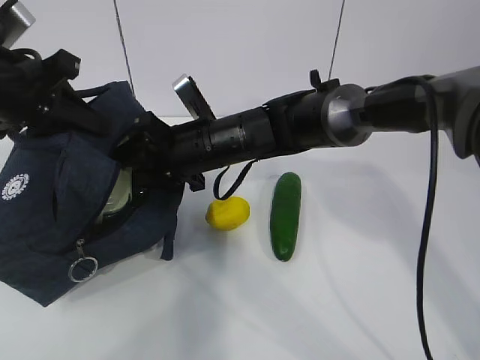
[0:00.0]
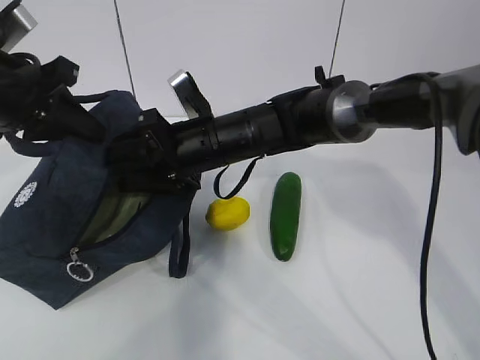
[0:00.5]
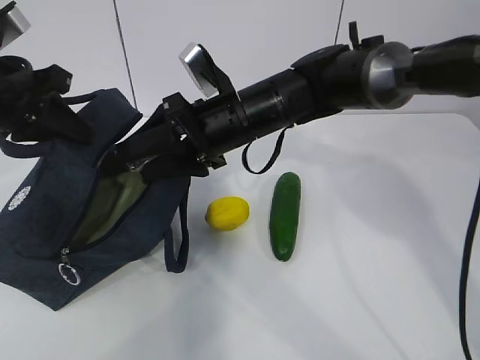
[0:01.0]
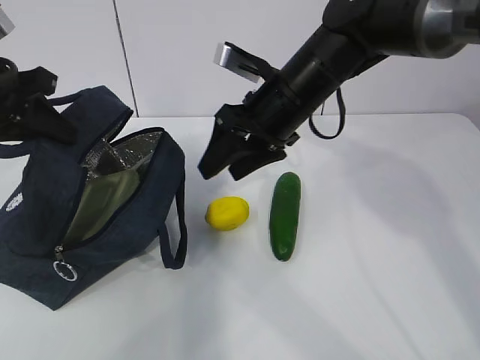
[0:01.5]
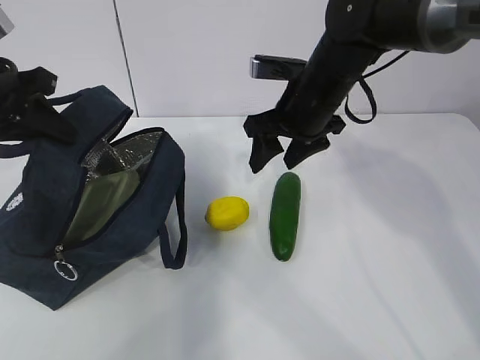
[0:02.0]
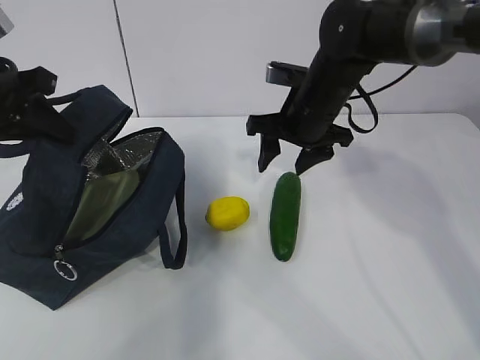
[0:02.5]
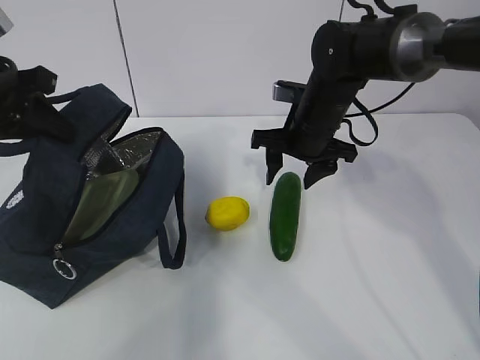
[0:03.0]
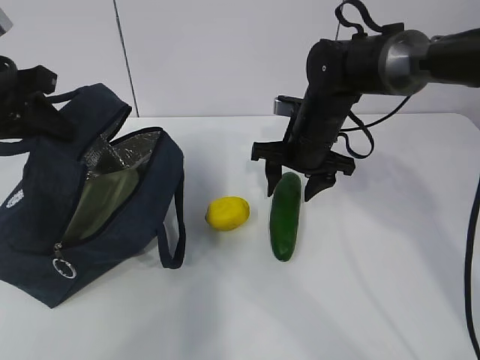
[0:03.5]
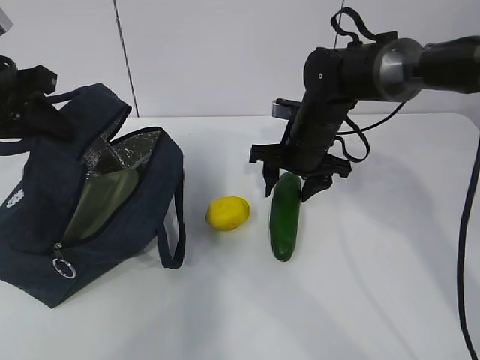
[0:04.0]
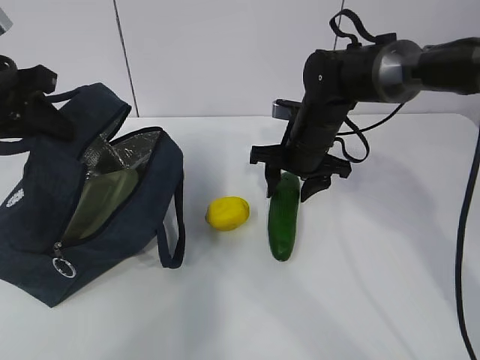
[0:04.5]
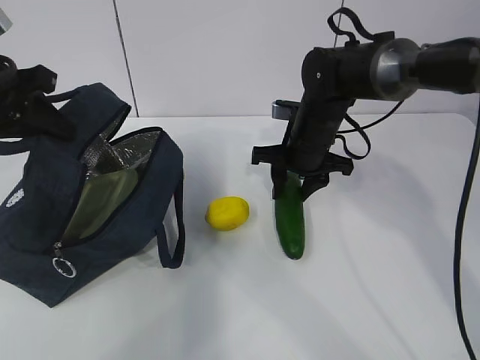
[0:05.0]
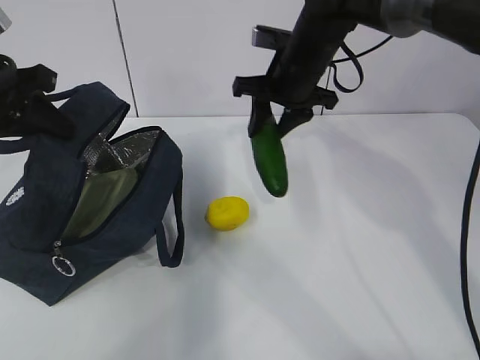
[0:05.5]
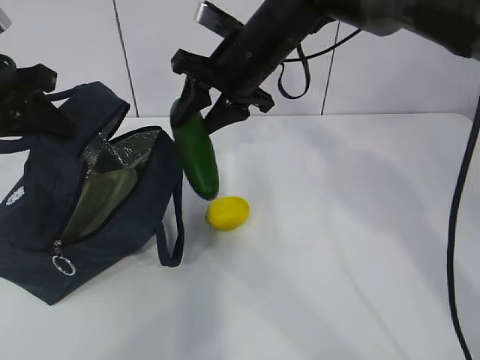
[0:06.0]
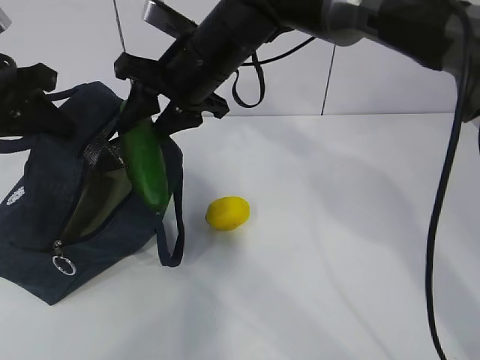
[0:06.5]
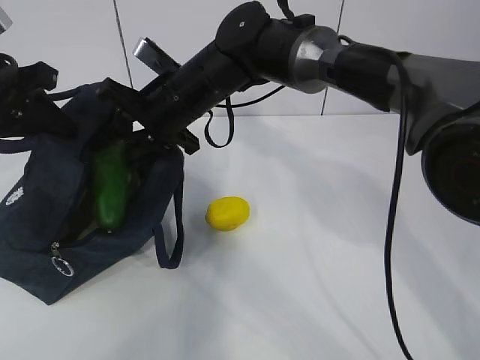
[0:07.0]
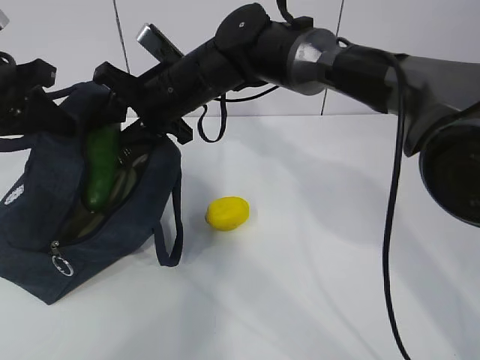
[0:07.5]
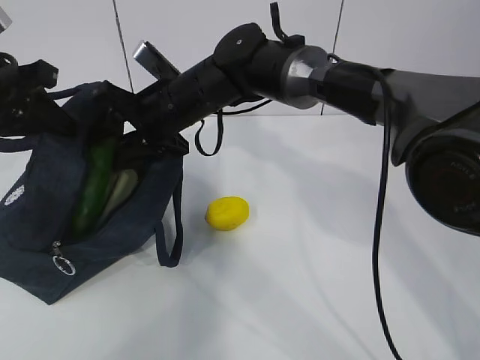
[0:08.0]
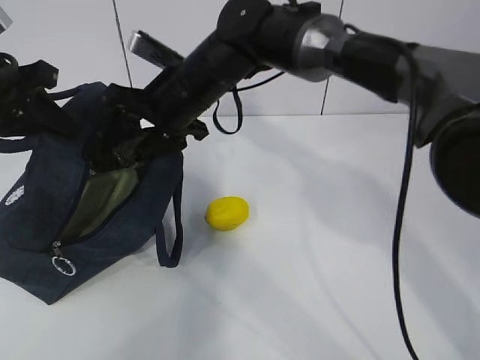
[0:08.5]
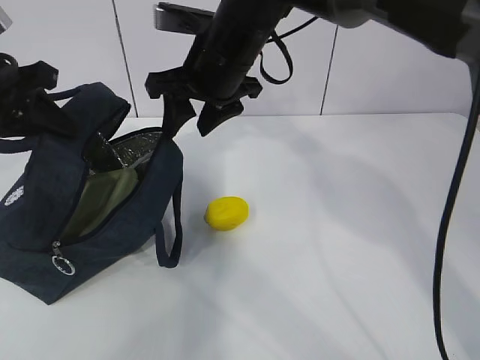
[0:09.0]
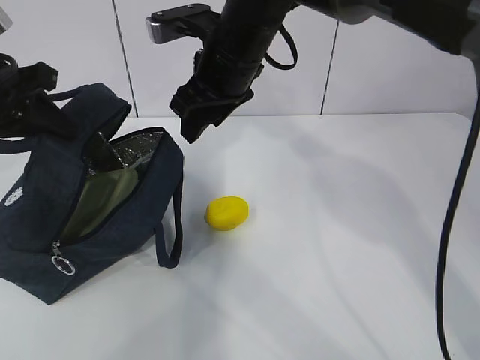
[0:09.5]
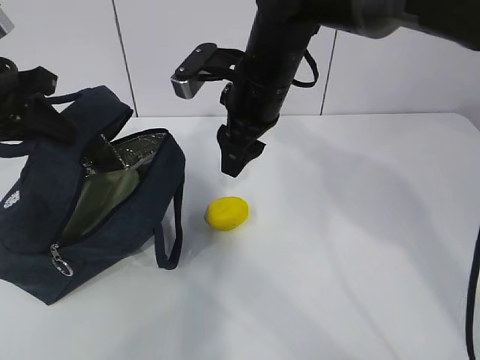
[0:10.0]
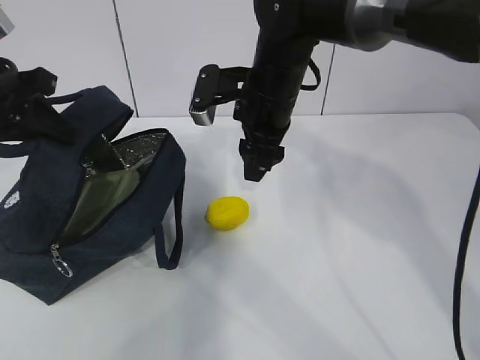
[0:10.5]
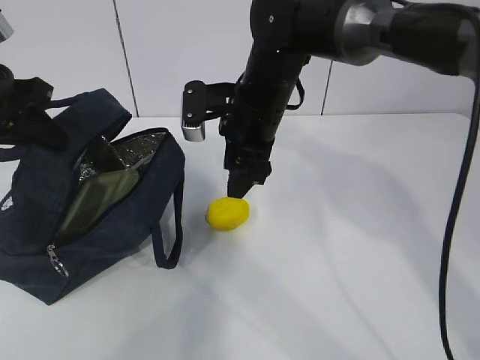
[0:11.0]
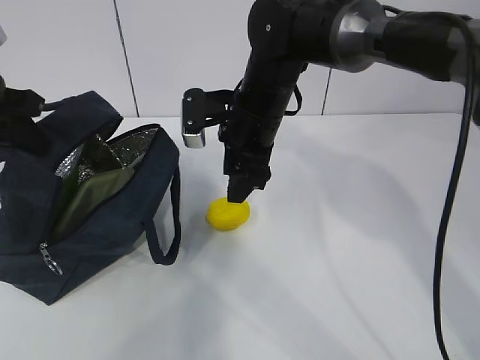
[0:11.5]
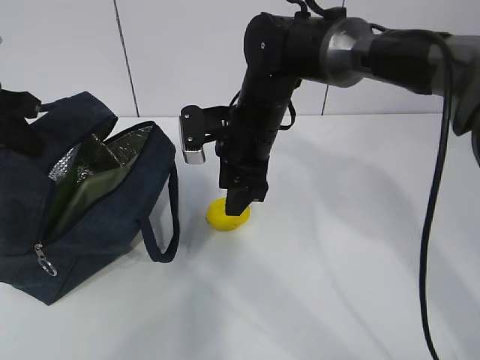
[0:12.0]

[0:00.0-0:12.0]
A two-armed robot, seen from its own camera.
Step, 0:01.5 to 0:04.5: Grasp the cucumber with the right gripper.
Step, 0:05.5 to 0:08.5: Place the cucumber into the package with the right gripper.
0:00.0 to 0:02.0: The right gripper moves to the right and upward, some 15 cm.
0:02.0 to 0:04.0: The right gripper goes about 10 cm downward.
0:04.0 to 0:06.0: The right gripper shifts some 15 cm upward and to the left.
0:06.0 to 0:08.0: The right gripper shifts some 10 cm to the left and downward.
0:08.0 to 0:10.0: The right gripper goes about 10 cm to the right.
0:10.0 to 0:12.0: The right gripper moves downward, approximately 5 cm.

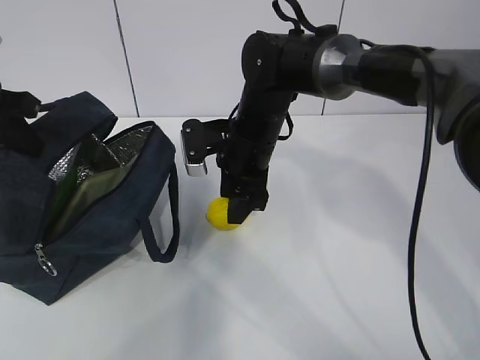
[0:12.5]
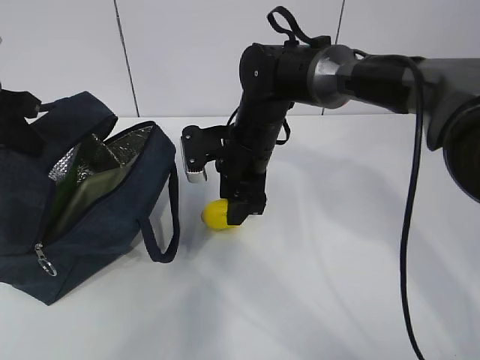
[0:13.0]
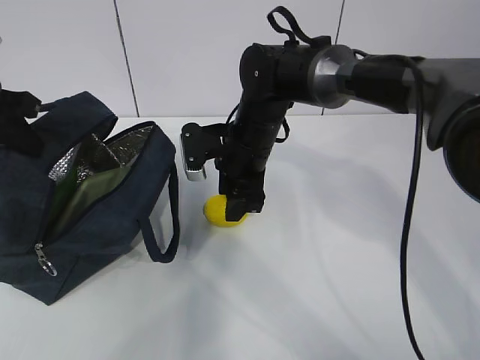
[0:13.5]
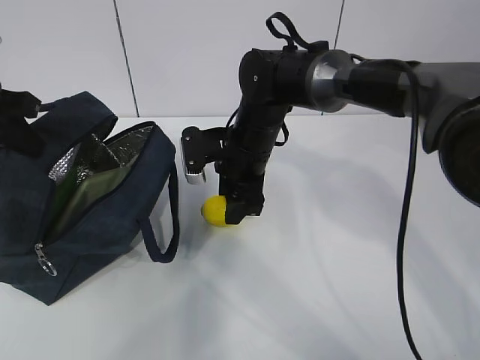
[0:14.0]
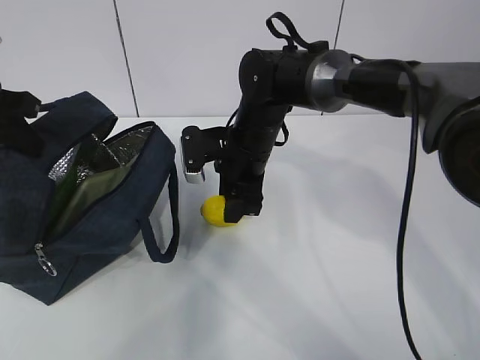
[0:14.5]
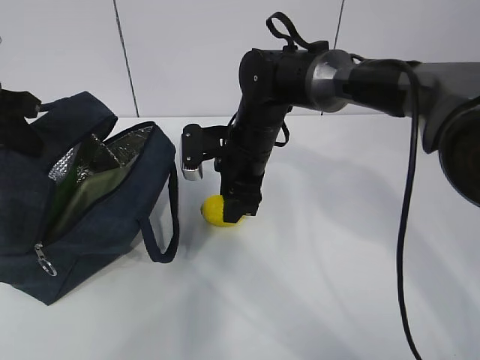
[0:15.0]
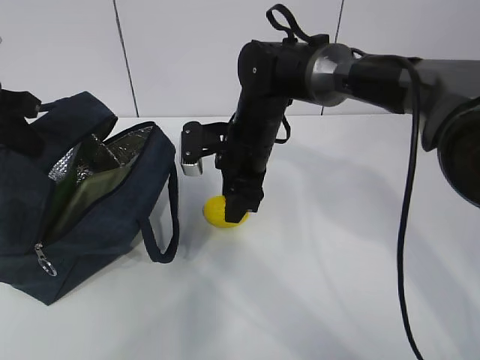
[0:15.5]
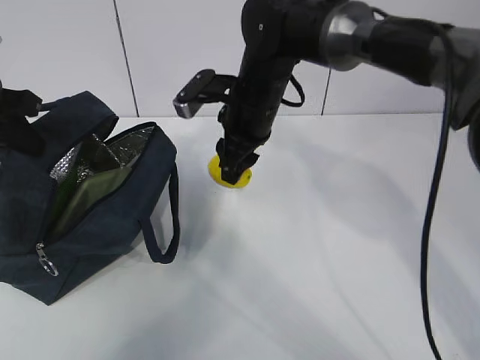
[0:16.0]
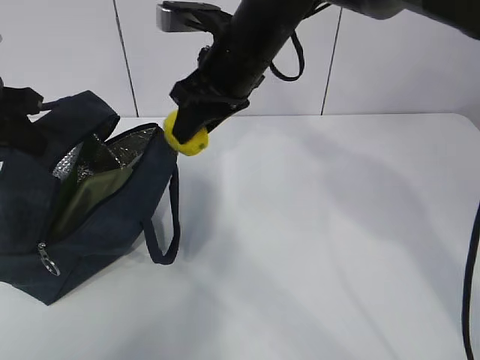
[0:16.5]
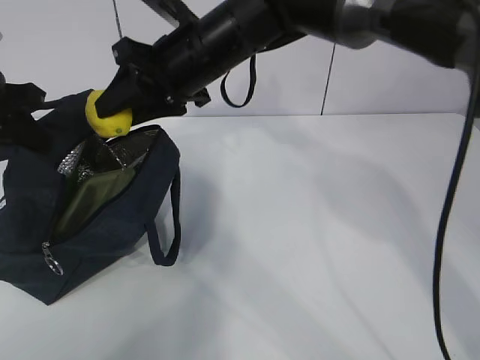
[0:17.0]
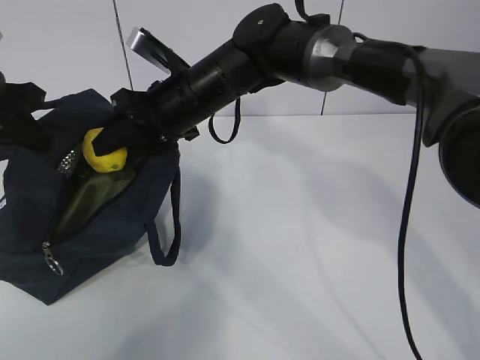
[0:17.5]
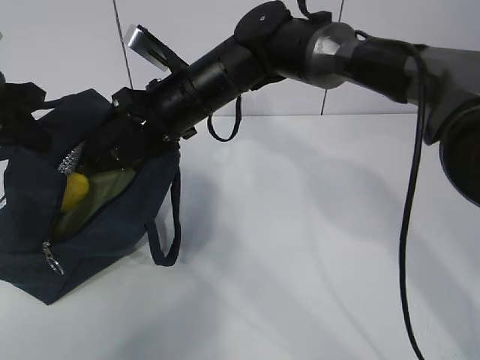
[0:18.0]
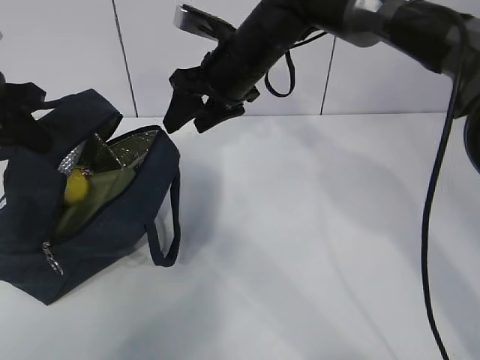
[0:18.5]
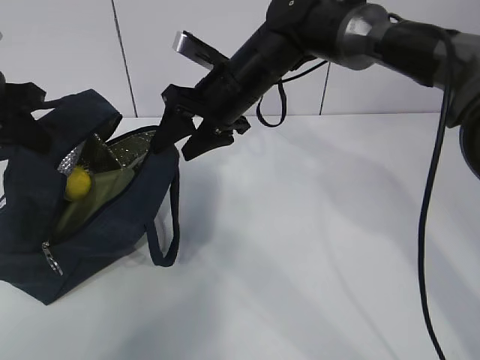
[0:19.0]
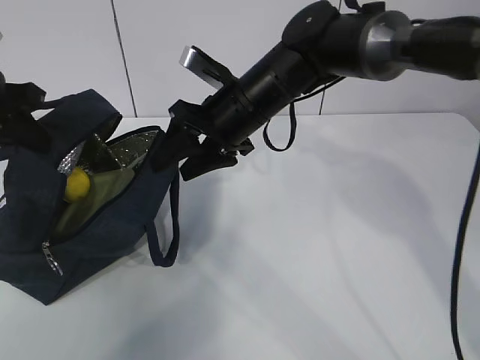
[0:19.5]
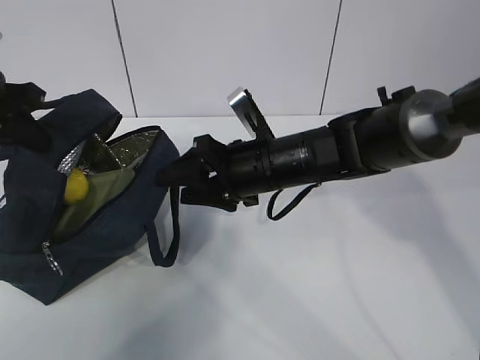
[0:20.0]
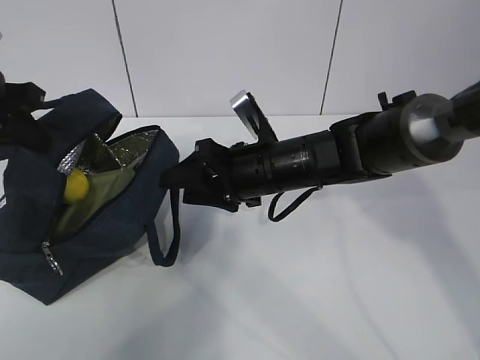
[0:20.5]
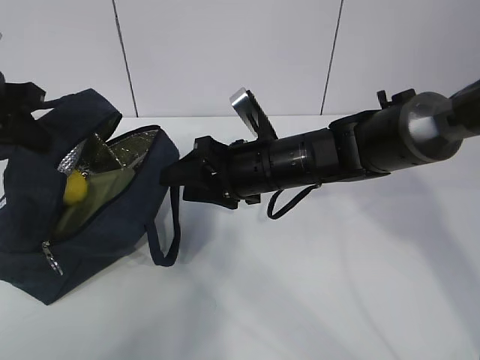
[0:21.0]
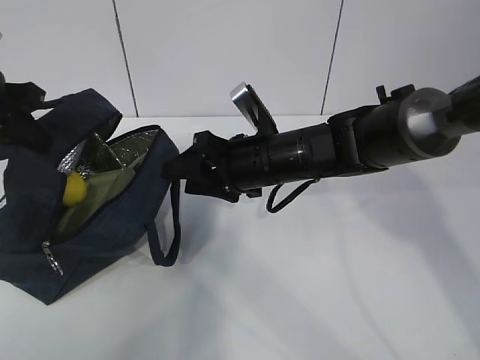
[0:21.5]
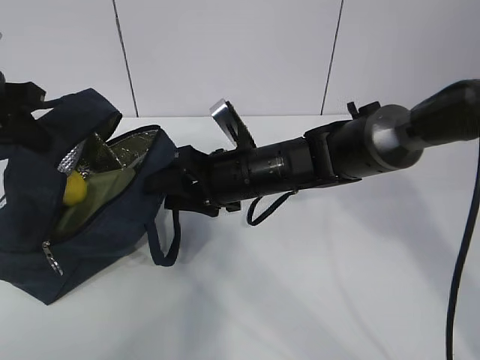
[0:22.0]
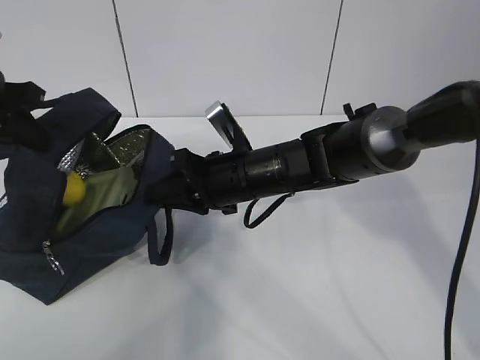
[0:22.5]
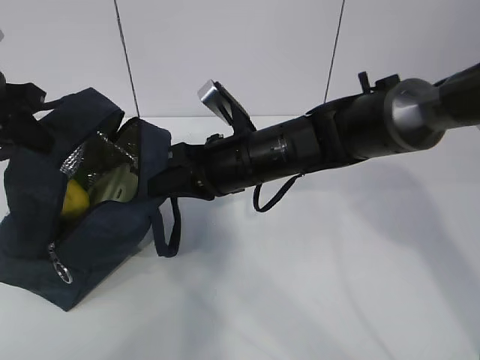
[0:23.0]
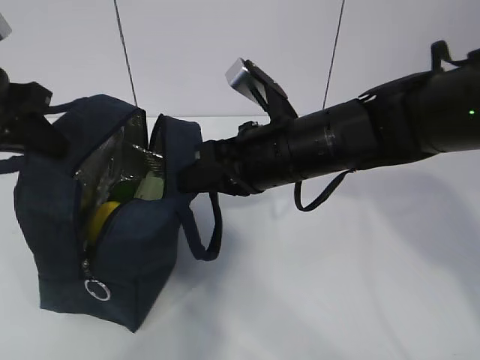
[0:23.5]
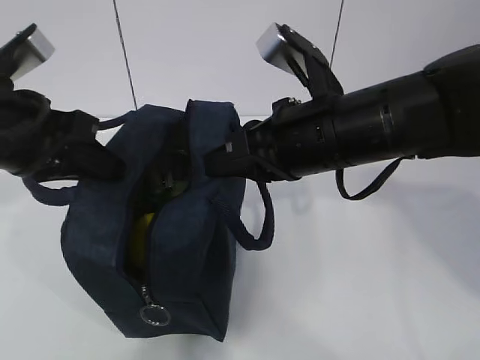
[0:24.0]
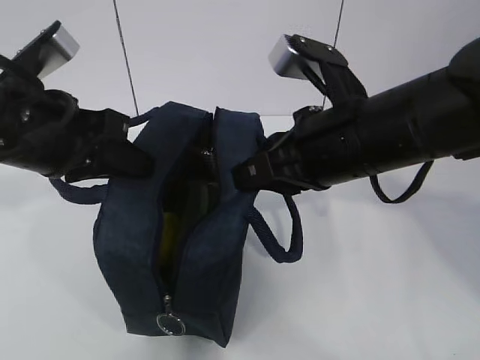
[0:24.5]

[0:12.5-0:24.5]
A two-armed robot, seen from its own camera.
Step, 0:12.5 to 0:14.5: Grasp the lemon with the right gripper.
Step, 0:15.5 to 0:18.0: Place the lemon into the package with the right gripper.
0:12.5 to 0:14.5: The grippers stay close to where they were, moving slightly.
0:14.5 to 0:16.5: The right gripper is displaced upward by about 15 cm.
0:18.5 to 0:20.5: The right gripper is displaced downward and backward by roughly 15 cm.
0:20.5 to 0:22.5: The right gripper closes up.
0:22.5 to 0:24.5: The left gripper moves to the right and backward, approximately 15 cm. Meanwhile the right gripper shifts roughly 15 cm upward, backward and to the right.

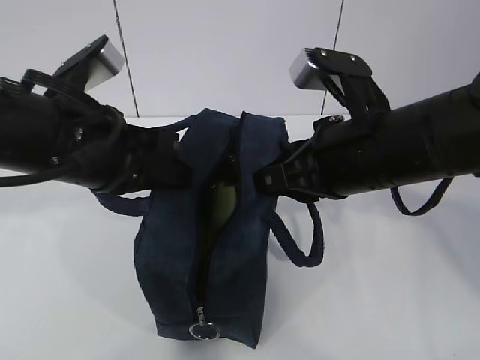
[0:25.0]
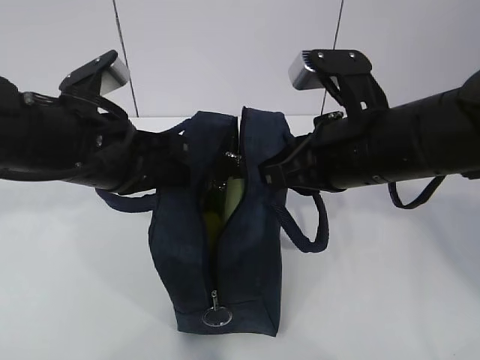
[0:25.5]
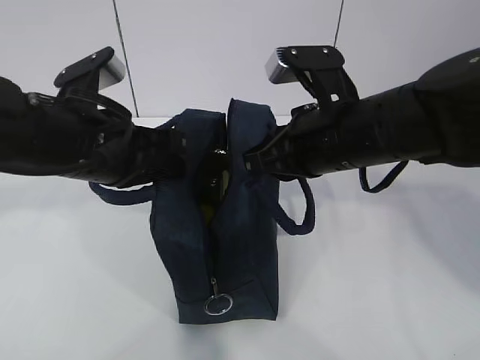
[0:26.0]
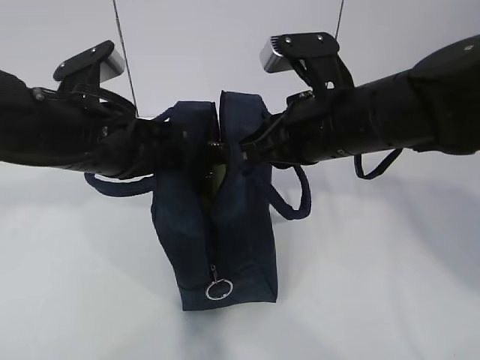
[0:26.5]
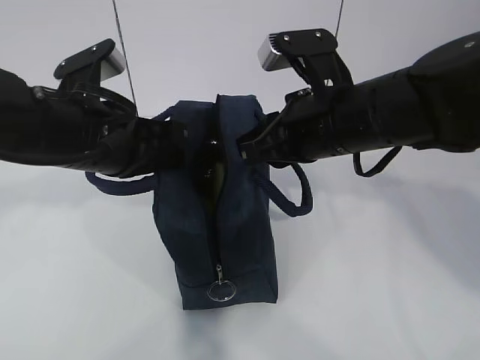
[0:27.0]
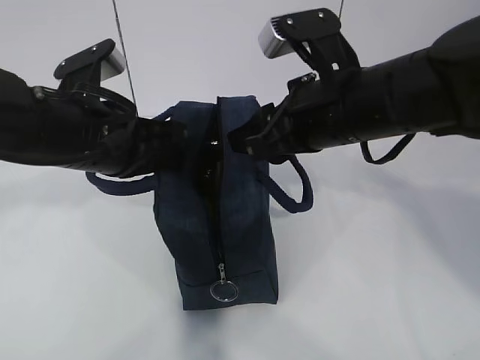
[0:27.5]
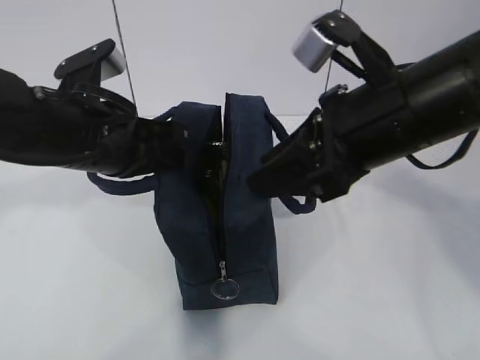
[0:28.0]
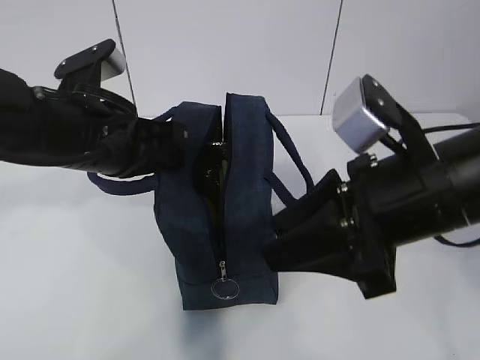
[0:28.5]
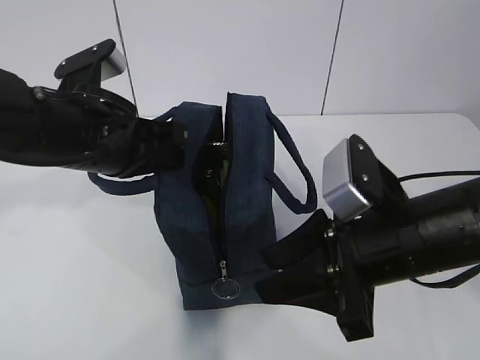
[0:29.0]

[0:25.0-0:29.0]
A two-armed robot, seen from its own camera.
0:25.0 to 0:27.0: The right gripper changes place by roughly 5 cm.
0:27.0 to 0:29.0: The right gripper heads backward, covering some 10 cm, and opens up.
